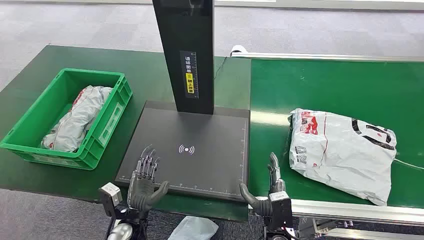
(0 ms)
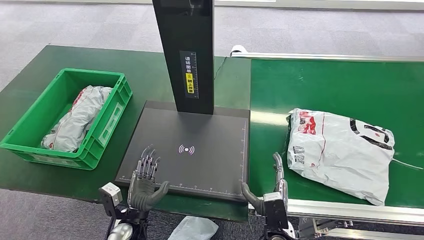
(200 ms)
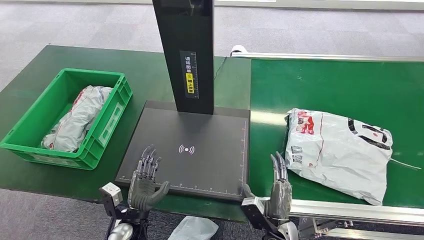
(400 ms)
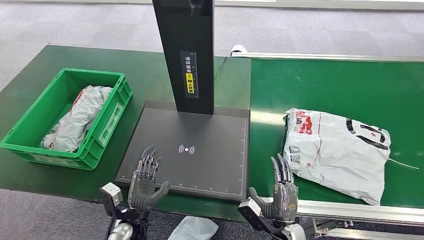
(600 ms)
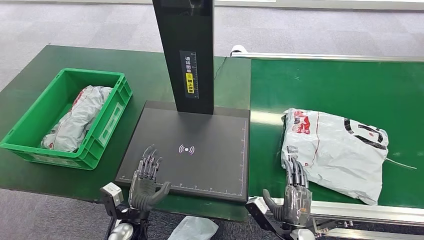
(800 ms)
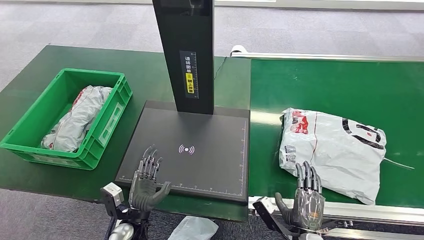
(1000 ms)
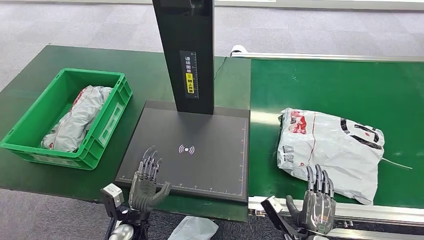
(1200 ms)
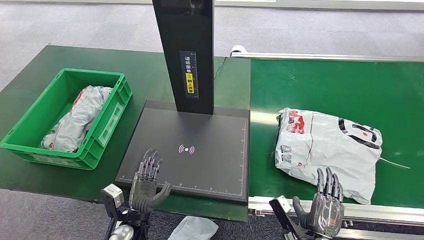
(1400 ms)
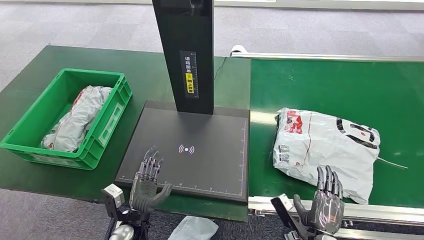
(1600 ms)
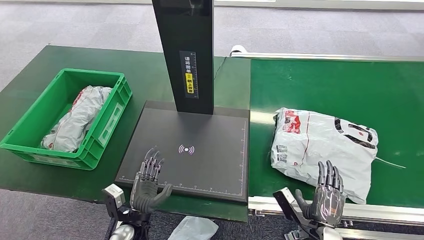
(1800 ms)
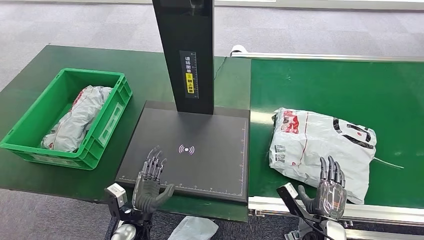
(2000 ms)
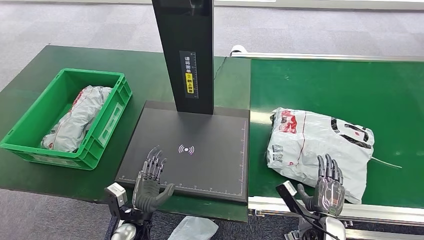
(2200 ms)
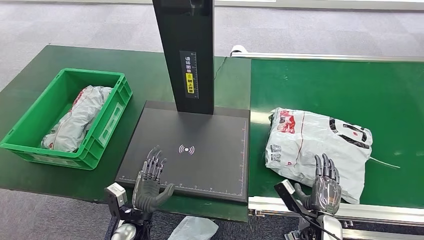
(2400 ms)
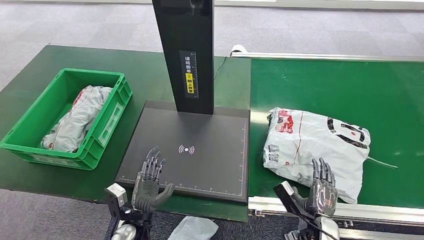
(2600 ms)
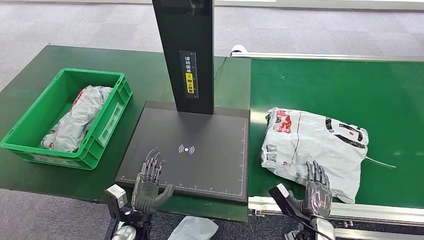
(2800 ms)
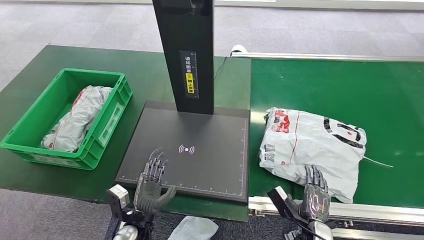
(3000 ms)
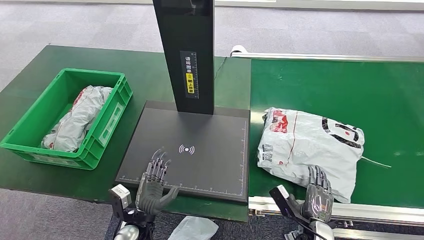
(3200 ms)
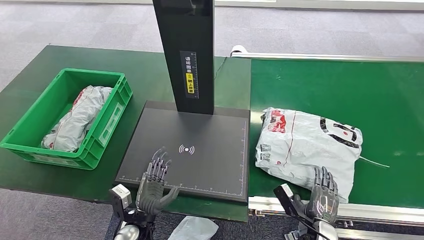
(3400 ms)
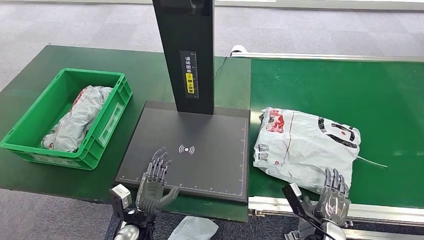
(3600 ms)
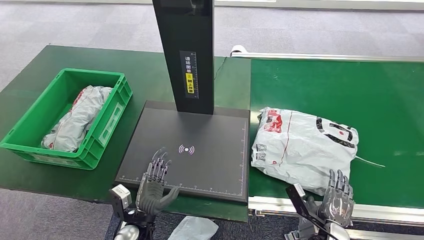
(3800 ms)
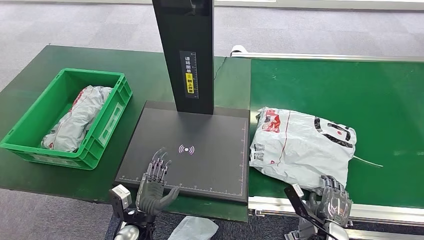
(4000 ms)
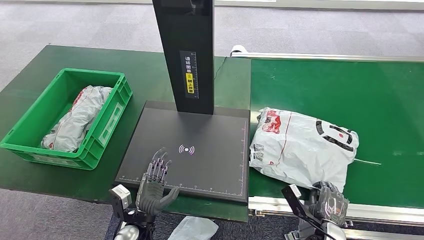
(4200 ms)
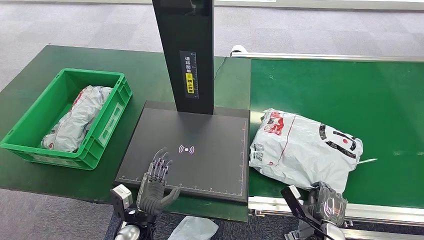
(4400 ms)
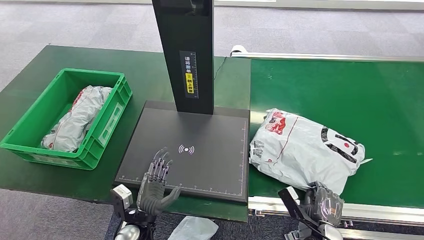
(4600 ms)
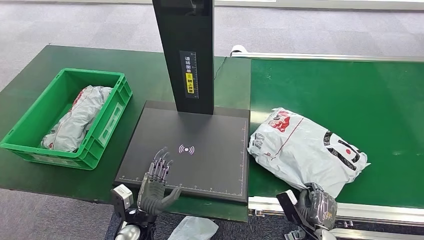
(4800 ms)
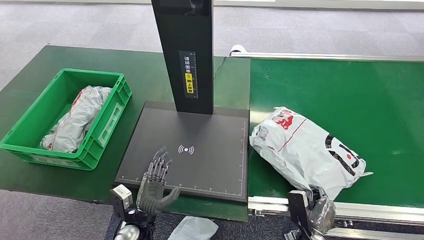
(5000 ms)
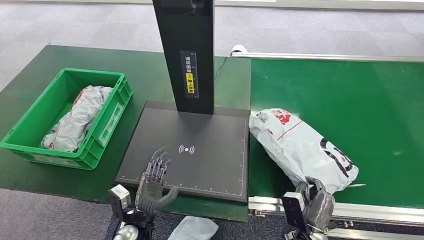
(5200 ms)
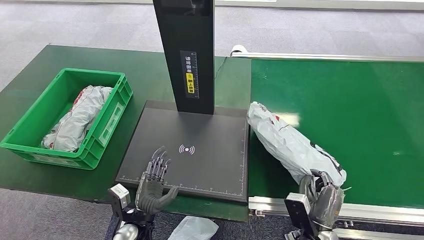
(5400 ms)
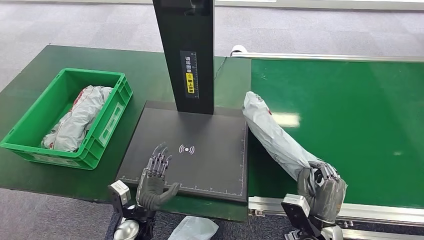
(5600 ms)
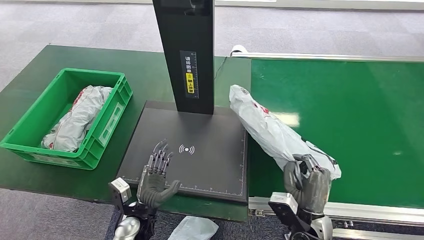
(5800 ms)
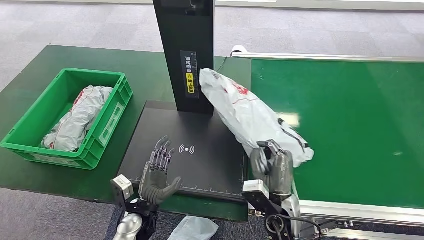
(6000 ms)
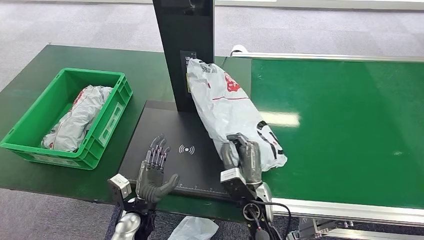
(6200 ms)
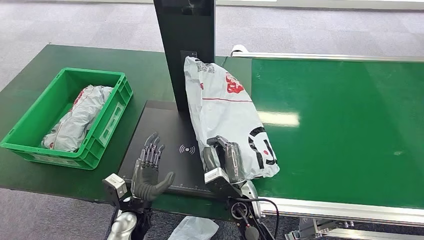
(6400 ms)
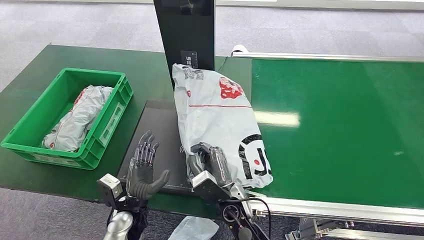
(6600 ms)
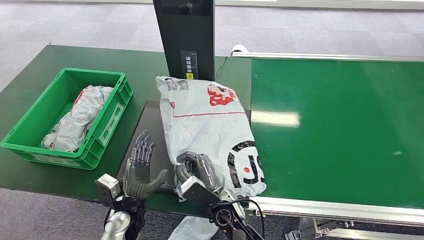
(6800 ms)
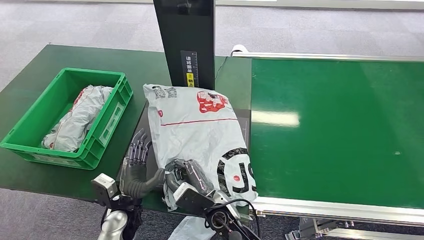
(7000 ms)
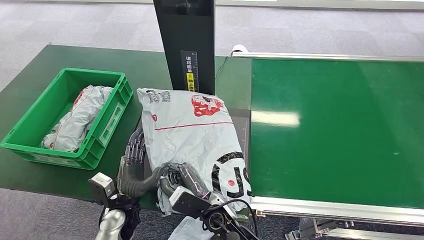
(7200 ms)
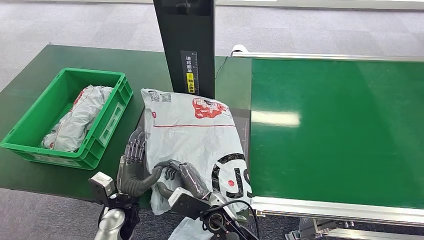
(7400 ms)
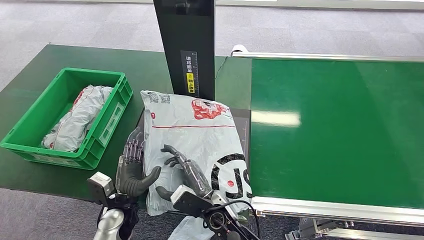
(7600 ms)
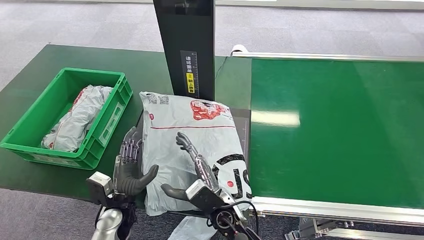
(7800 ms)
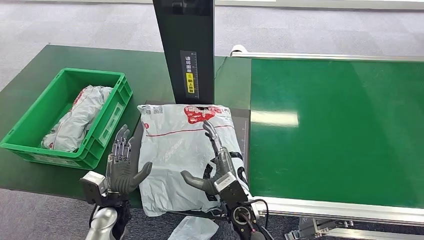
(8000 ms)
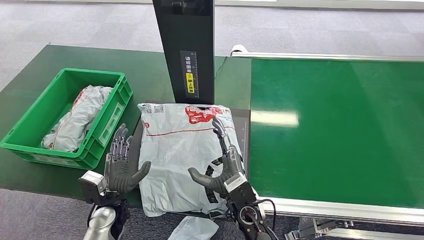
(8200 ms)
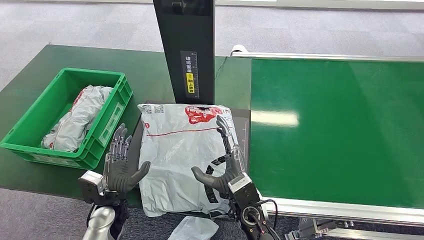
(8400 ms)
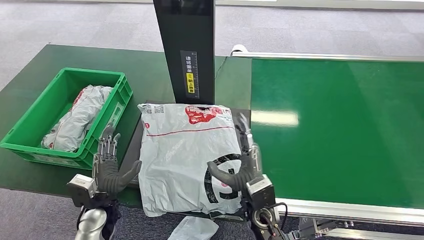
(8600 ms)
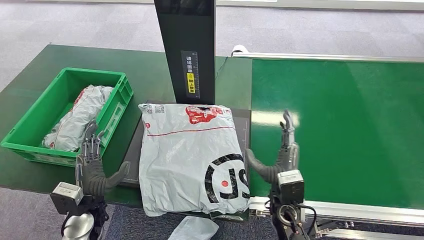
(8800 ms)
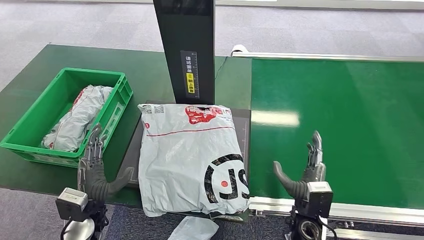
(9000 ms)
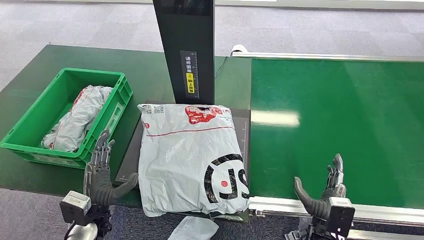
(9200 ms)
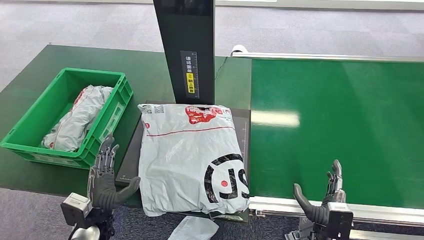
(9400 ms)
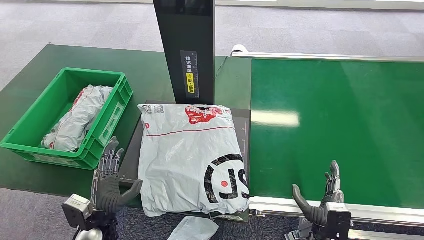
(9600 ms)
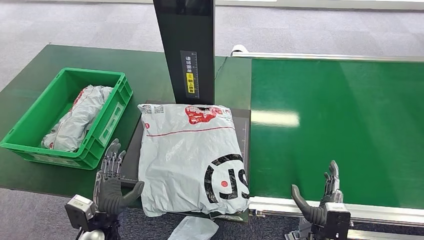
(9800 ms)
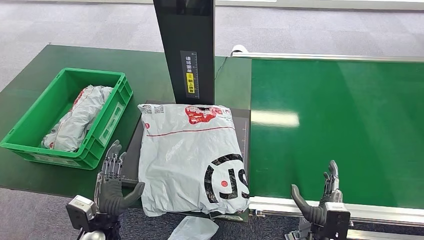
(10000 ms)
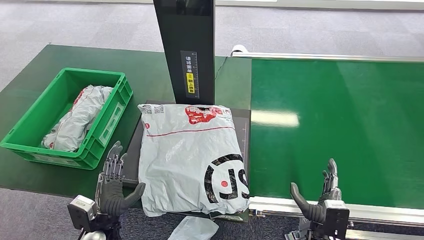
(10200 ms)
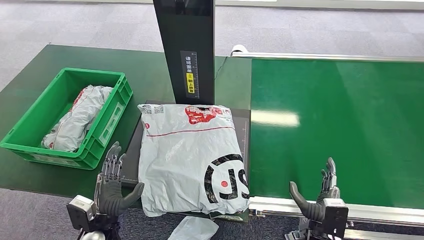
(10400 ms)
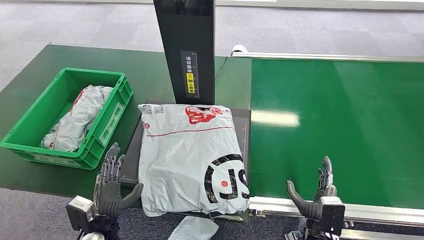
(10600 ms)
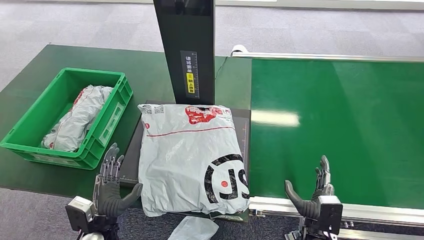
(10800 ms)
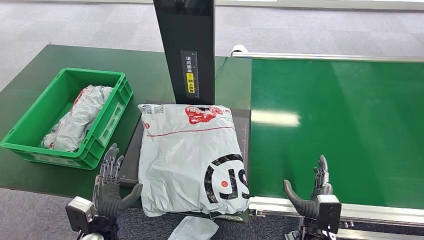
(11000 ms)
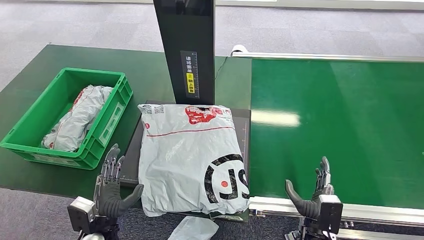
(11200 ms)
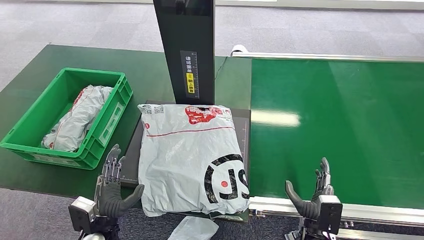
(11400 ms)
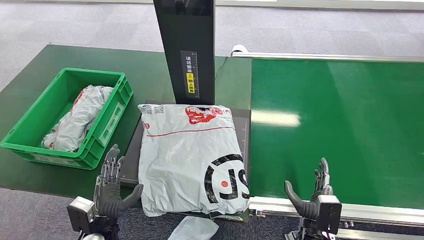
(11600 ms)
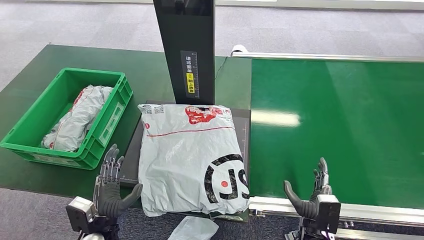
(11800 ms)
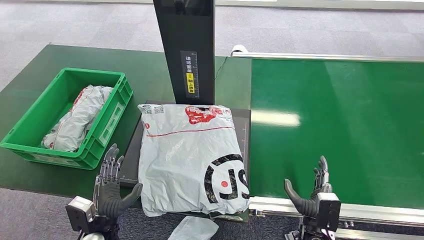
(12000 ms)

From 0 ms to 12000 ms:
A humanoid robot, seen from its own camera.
Step, from 0 ms to 5800 ms: Pick up the package from the conveyor belt.
Step, from 6000 ms to 9000 ms: Place the package onto the inbound machine.
From 1600 ms to 4400 ms: The hands make only small movements.
From 4400 ms to 6000 ms: The right hand is displaced to the left and upward by some 20 cm.
From 7600 ms to 9000 ms: The right hand moves to the right, roughly 20 cm; the left hand travels to the left by approximately 5 cm.
From 9000 ms to 10400 ms: The right hand moves about 5 cm; the left hand shifts by approximately 5 cm.
From 10400 ms to 12000 ms: Neither hand changes place.

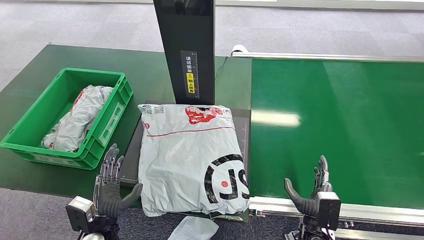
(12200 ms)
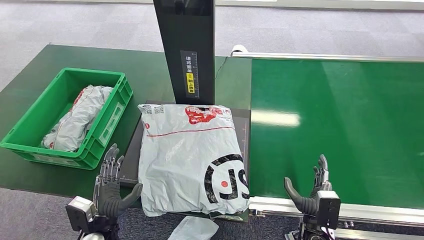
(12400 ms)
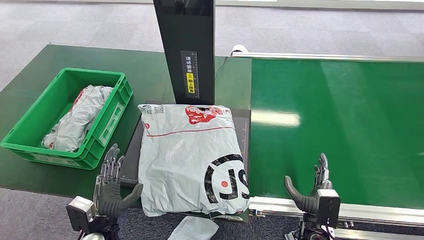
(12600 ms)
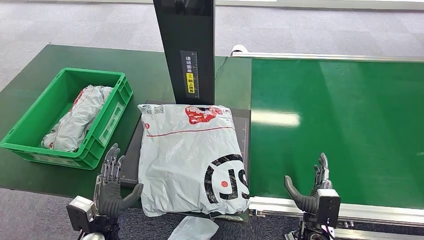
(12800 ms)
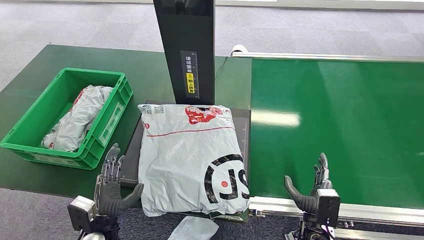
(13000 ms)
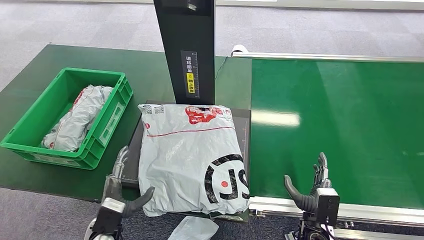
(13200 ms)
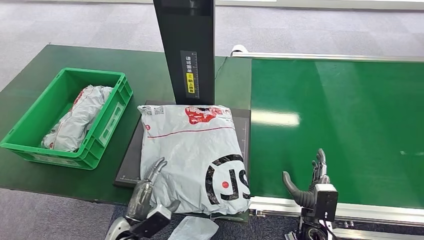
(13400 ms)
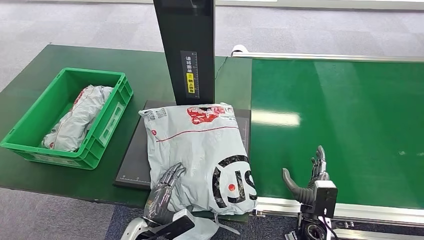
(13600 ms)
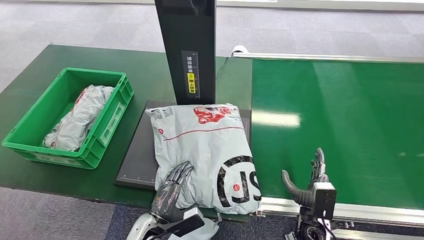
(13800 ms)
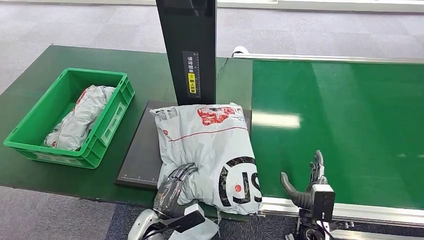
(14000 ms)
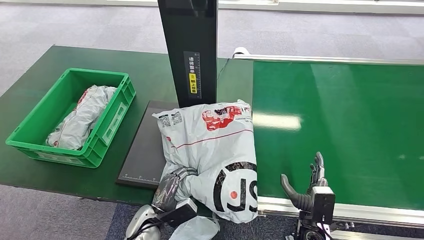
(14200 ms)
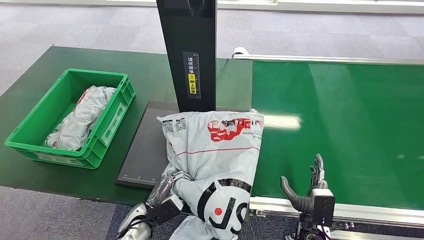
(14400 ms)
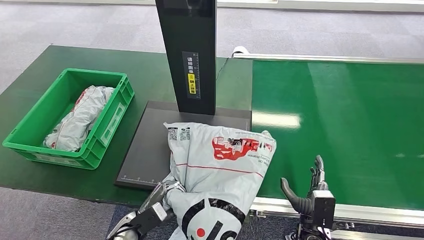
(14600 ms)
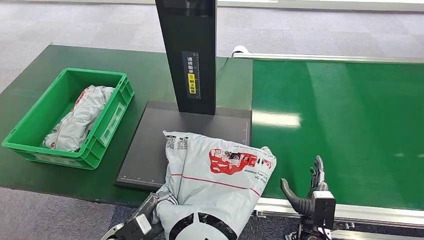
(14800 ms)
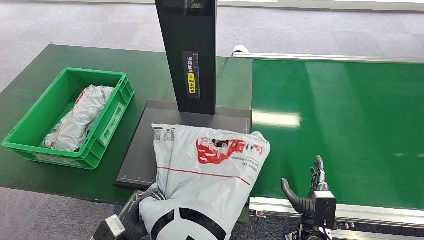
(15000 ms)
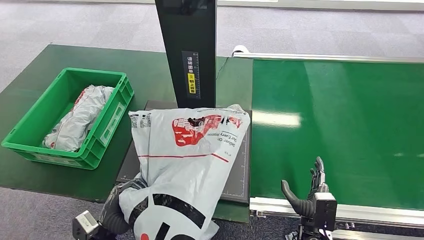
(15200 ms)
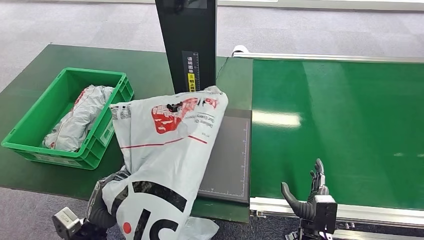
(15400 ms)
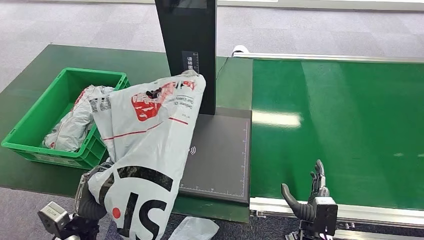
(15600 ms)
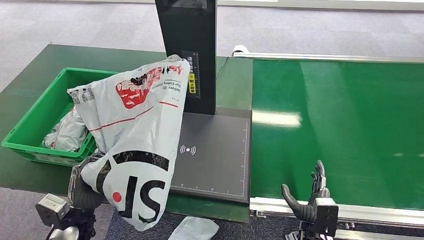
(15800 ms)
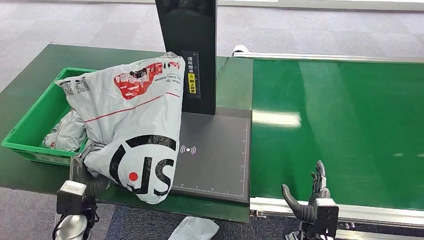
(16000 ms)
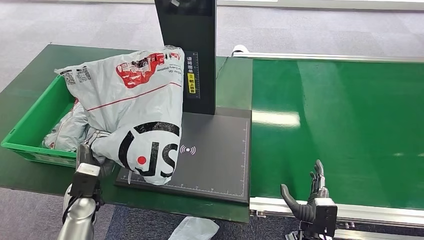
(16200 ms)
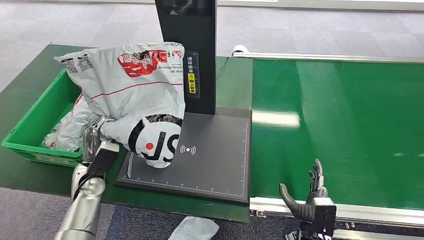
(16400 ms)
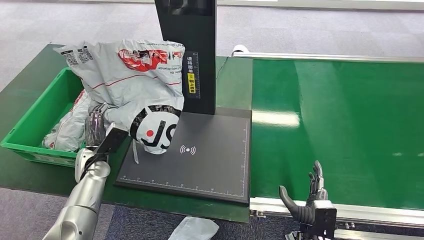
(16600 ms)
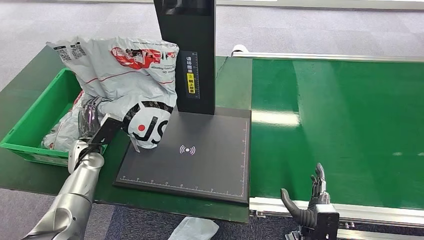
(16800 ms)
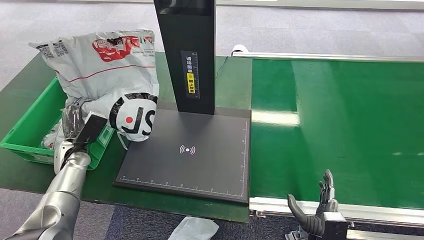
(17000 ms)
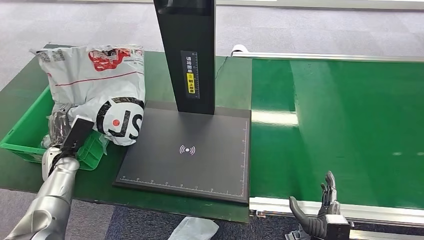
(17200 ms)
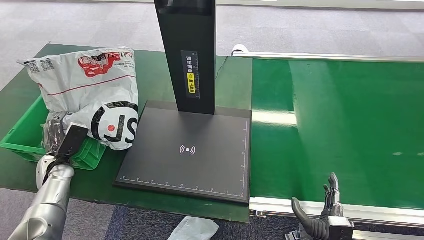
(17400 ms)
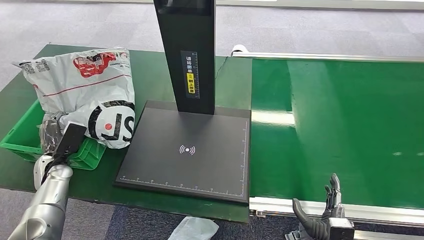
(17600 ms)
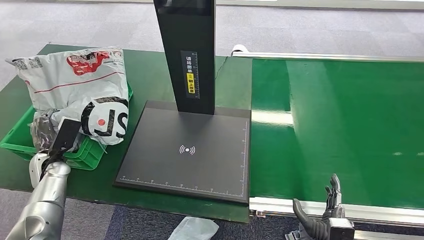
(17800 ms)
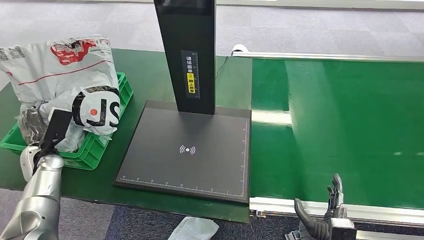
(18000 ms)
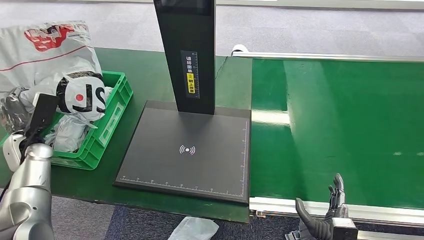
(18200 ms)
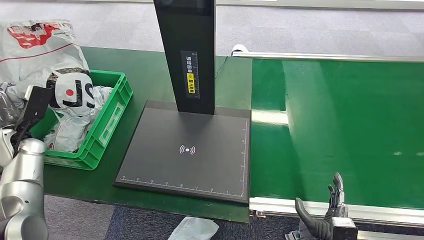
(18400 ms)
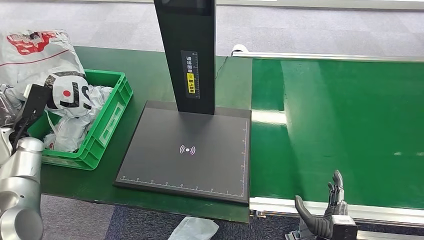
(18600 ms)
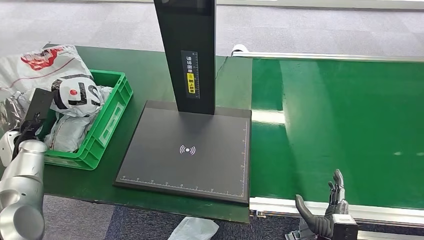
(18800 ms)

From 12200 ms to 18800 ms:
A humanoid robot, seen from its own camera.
Step, from 13000 ms to 15600 ms: Pick up the package from the inbound machine.
From 12200 ms to 13800 ms: The left hand shifts some 10 cm to the right.
